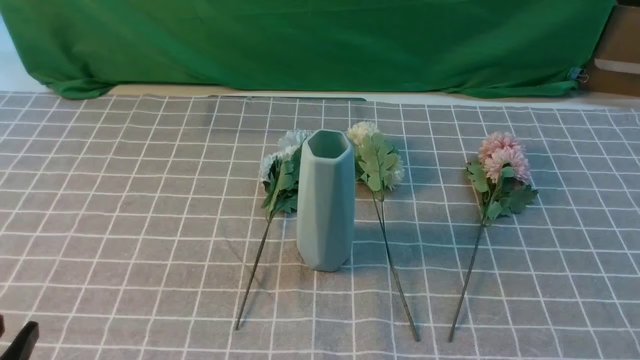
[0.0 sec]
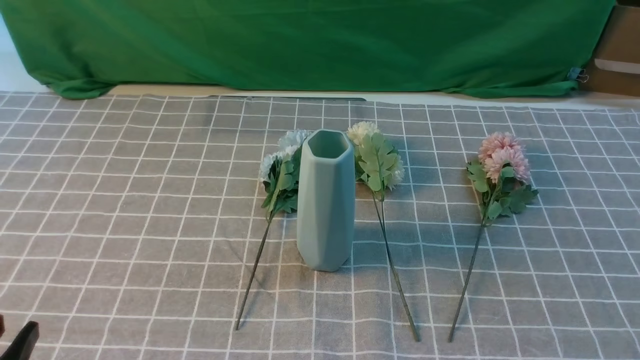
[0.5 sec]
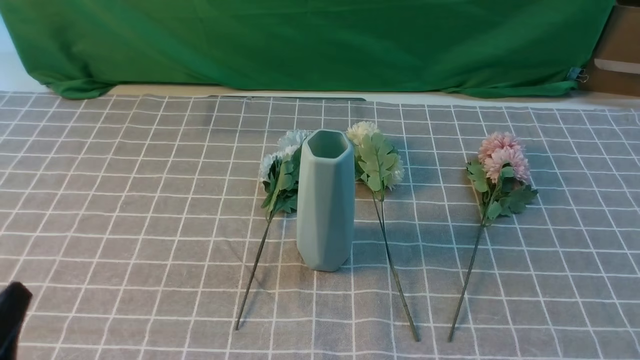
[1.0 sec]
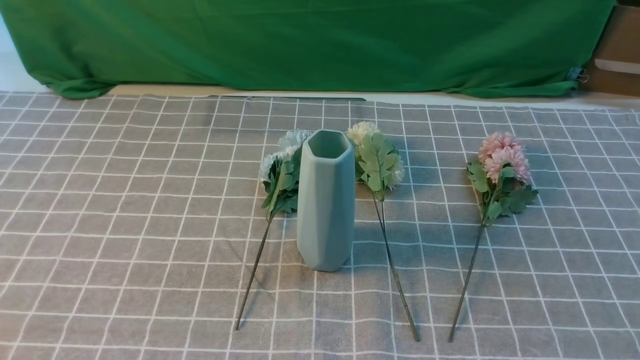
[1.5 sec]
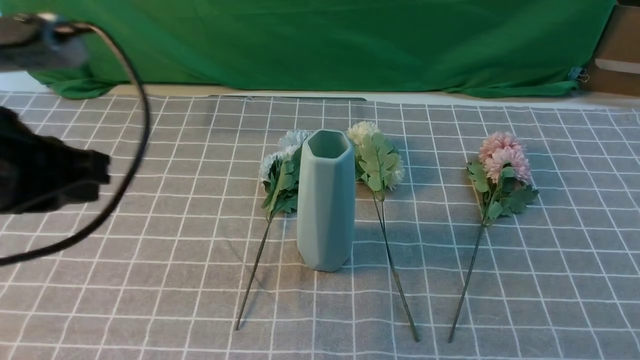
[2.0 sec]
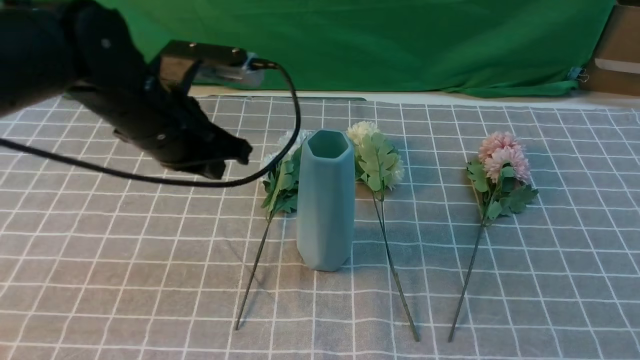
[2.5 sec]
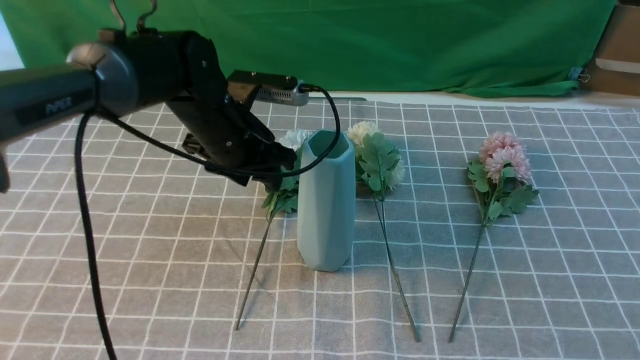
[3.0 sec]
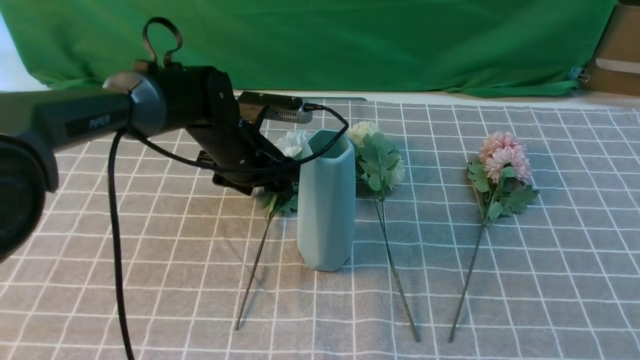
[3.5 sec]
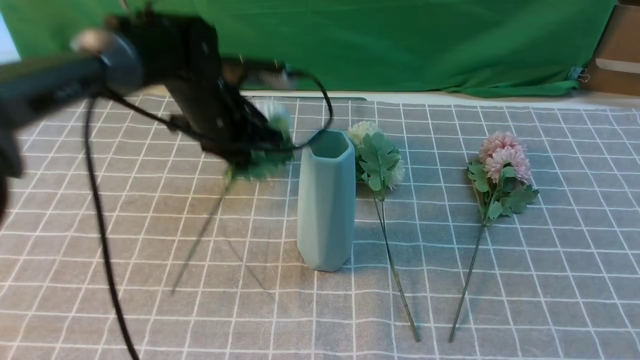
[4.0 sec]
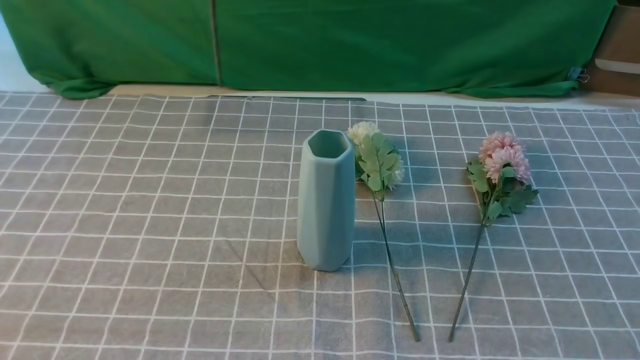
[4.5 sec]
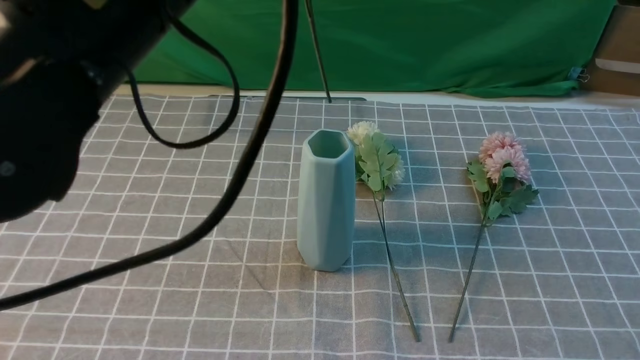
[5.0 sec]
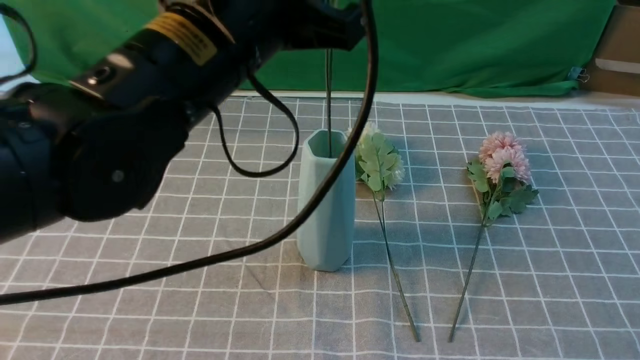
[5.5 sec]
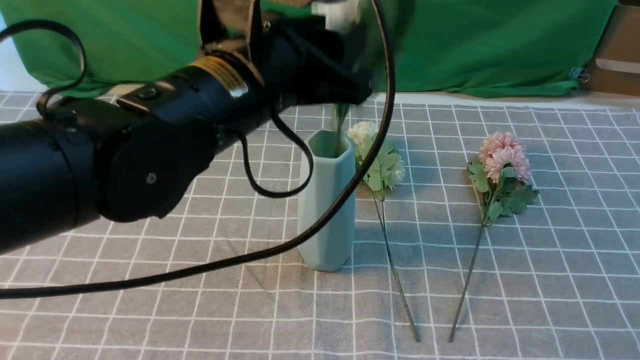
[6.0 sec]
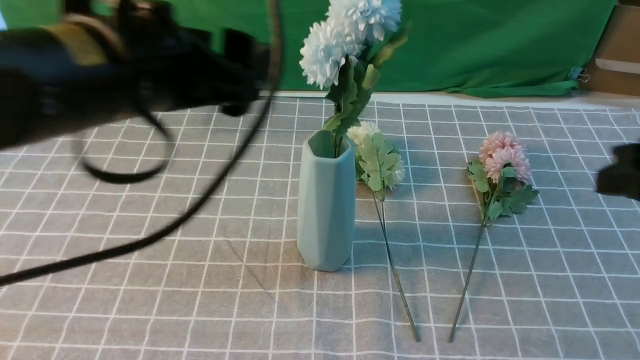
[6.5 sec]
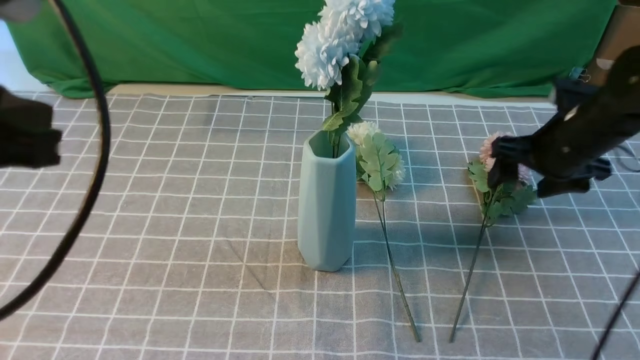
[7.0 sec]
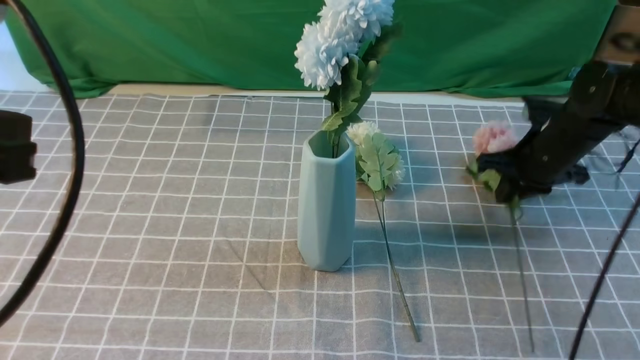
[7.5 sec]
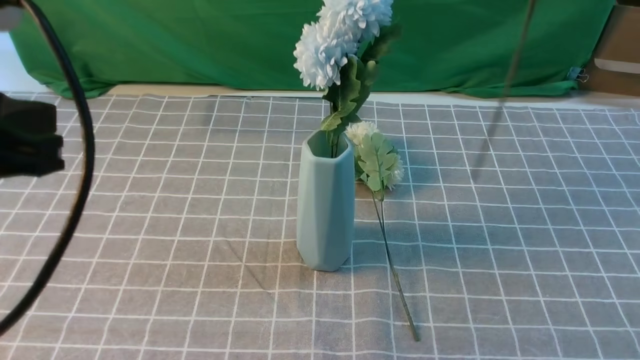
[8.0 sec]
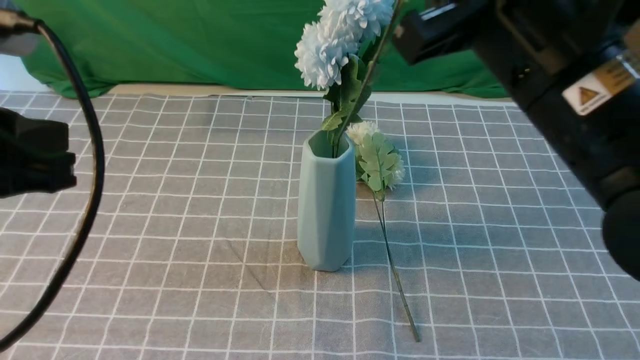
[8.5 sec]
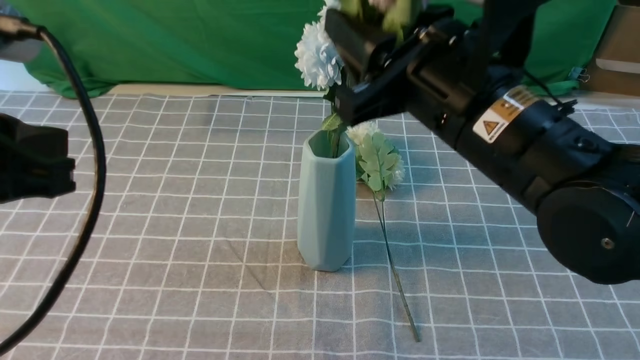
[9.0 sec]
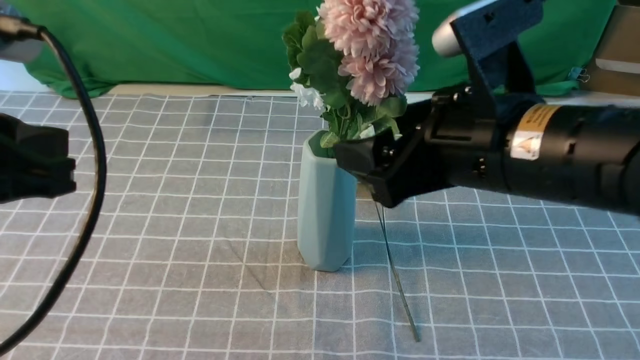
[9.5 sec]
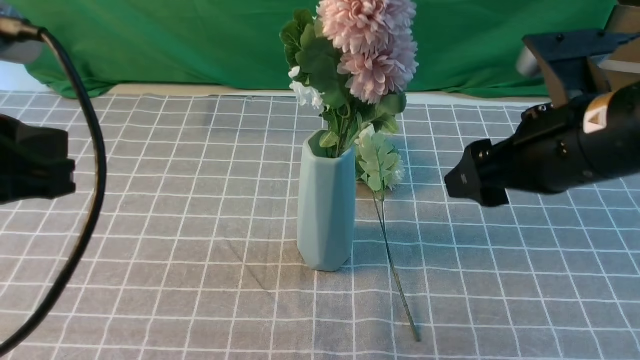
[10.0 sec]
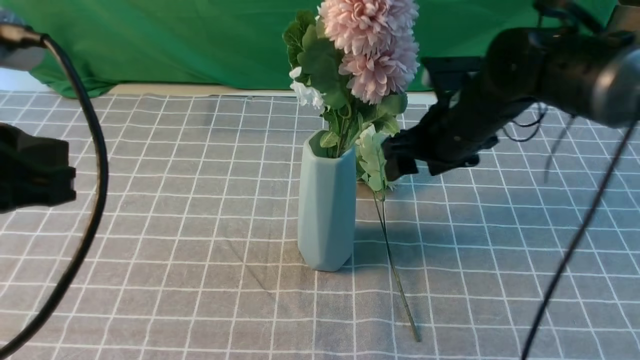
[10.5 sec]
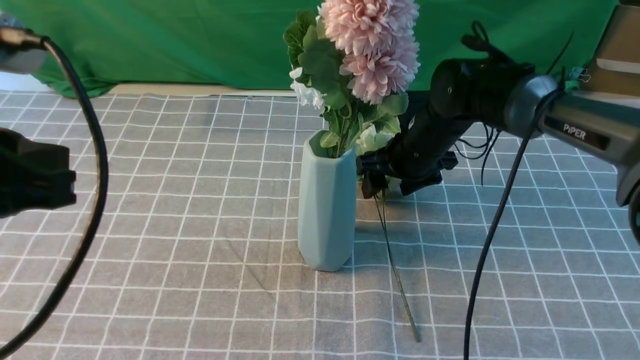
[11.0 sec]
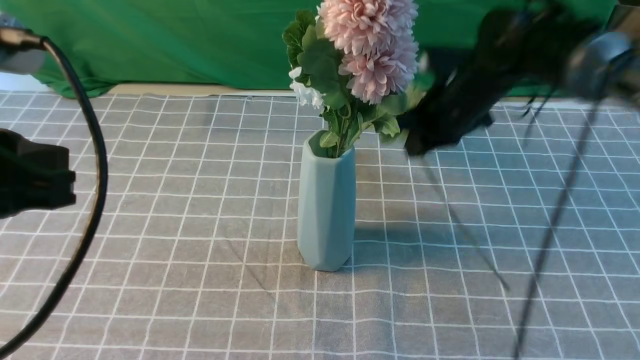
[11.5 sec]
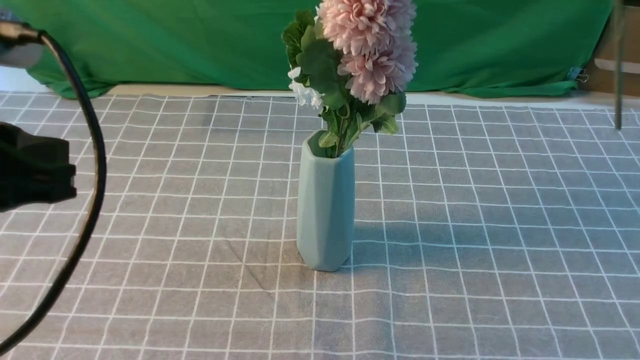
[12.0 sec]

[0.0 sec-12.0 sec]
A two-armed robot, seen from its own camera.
Task of the whole recording: insert the flowers into the vase on the table with the grey tablecloth.
Step, 0.0 sec to 3.5 sec: use the left arm to grab a bunch of fresh flowers.
Step, 4.0 sec to 6.0 sec: use the left arm to insert the flowers into the vase.
Step, 6.5 sec to 7.0 sec: use the right arm to grab a bunch of fresh flowers.
Step, 7.5 sec to 9.5 sec: use the right arm to insert the flowers into the vase.
Step, 10.0 sec to 11.0 sec: use the right arm to grab a bunch of fresh flowers.
0.0 sec to 2.0 sec: The left gripper shifts roughly 20 cm forward and upward, and closes.
2.0 sec to 4.0 sec: The left gripper travels forward and to the right by some 25 cm, and opens, then closes again; the right gripper travels upward by approximately 10 cm.
4.0 sec to 6.0 sec: The left gripper goes about 15 cm backward and upward, and opens up.
6.0 sec to 8.0 sec: The right gripper is displaced forward, to the left and upward by roughly 20 cm, and opens, then closes again; the left gripper is displaced to the left and backward by about 20 cm, and closes.
8.0 sec to 10.0 sec: The right gripper moves downward, about 10 cm, and opens up.
10.0 sec to 12.0 sec: The right gripper moves upward, roughly 20 cm, and closes its fingers.

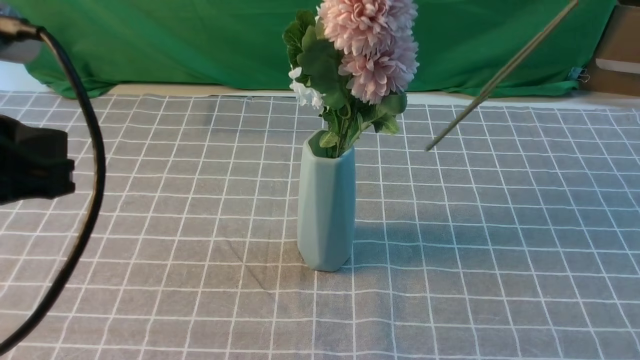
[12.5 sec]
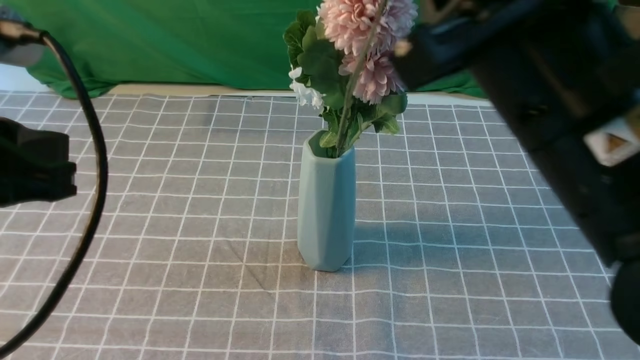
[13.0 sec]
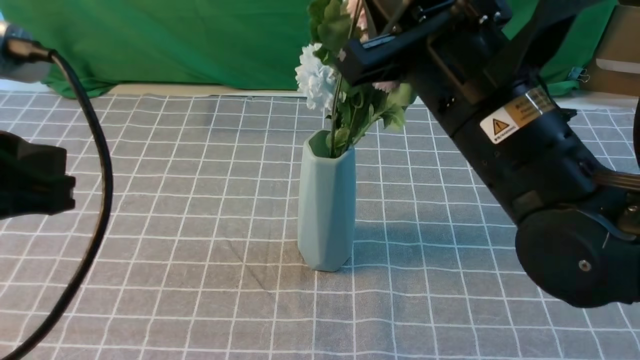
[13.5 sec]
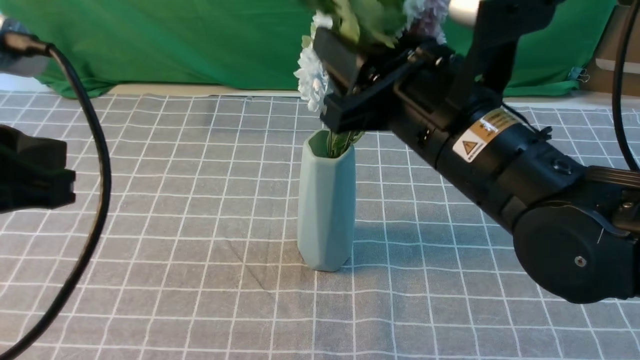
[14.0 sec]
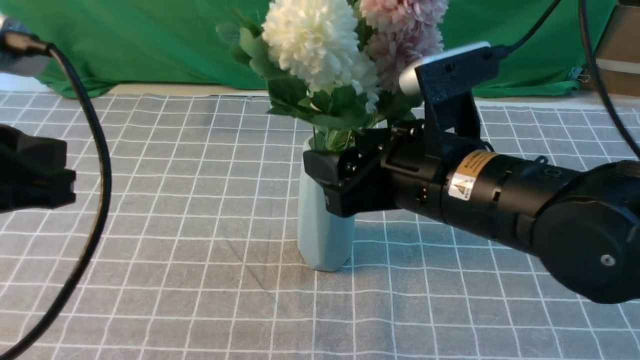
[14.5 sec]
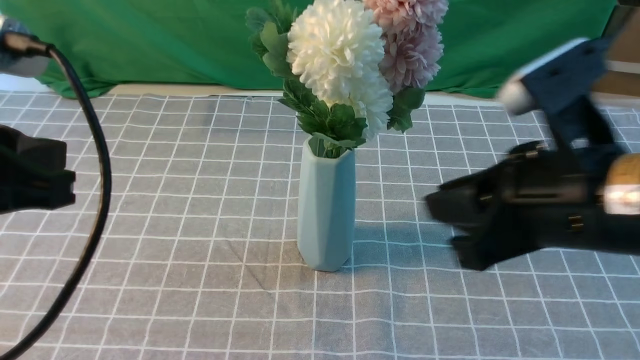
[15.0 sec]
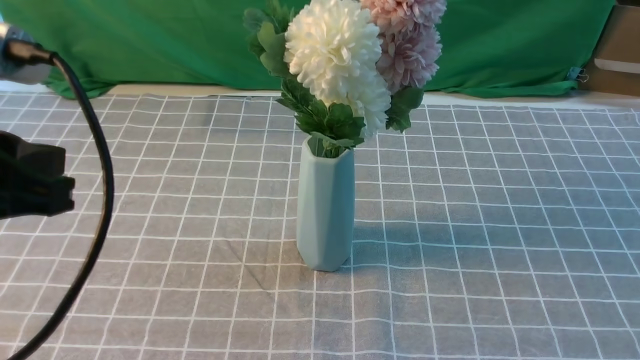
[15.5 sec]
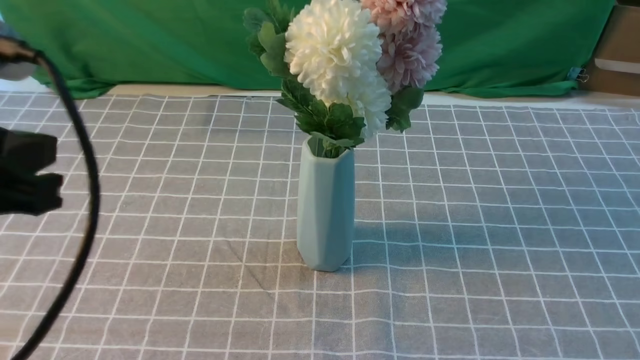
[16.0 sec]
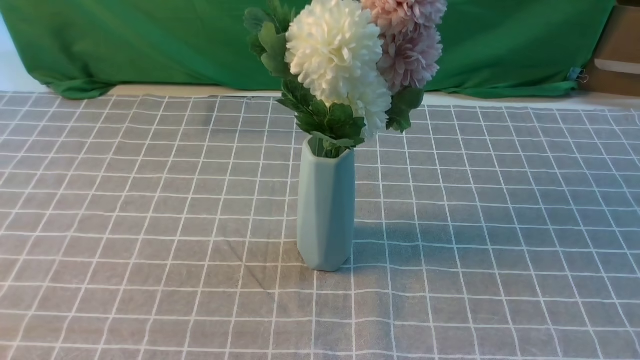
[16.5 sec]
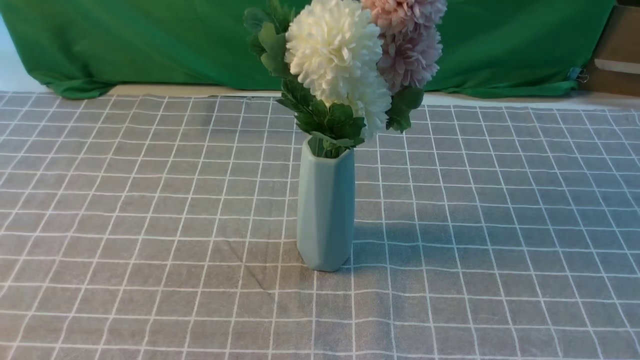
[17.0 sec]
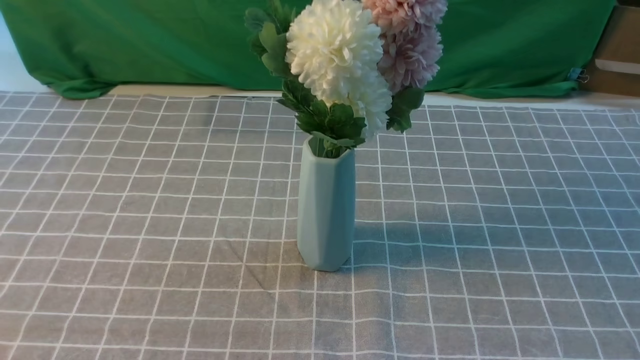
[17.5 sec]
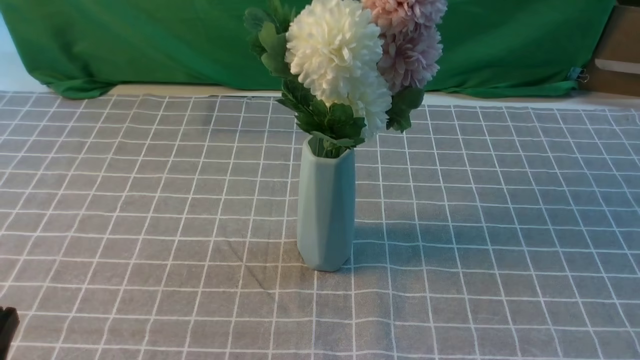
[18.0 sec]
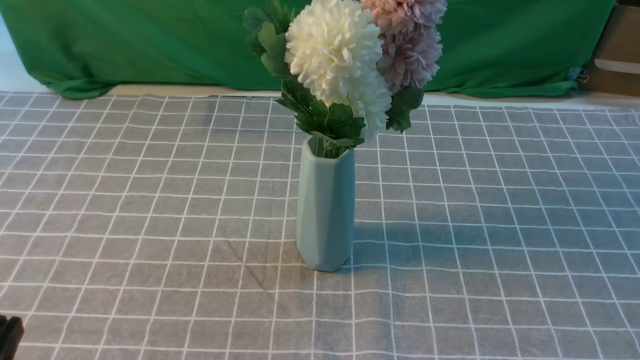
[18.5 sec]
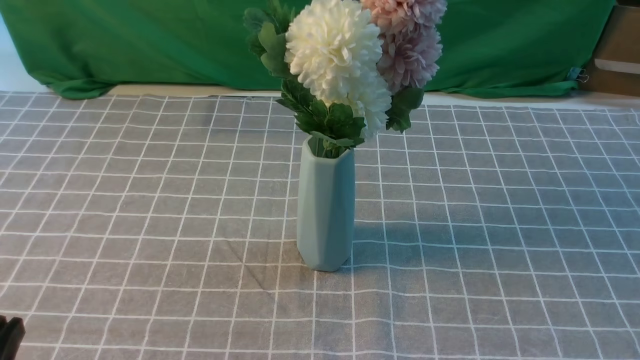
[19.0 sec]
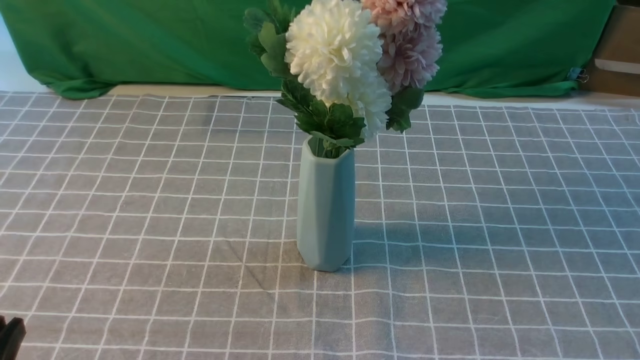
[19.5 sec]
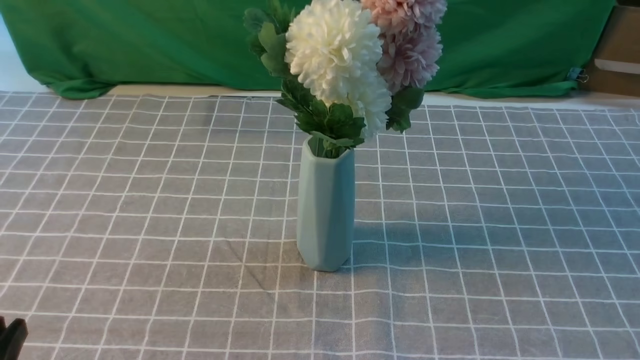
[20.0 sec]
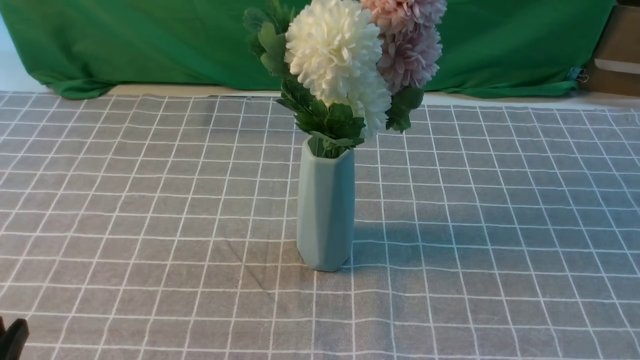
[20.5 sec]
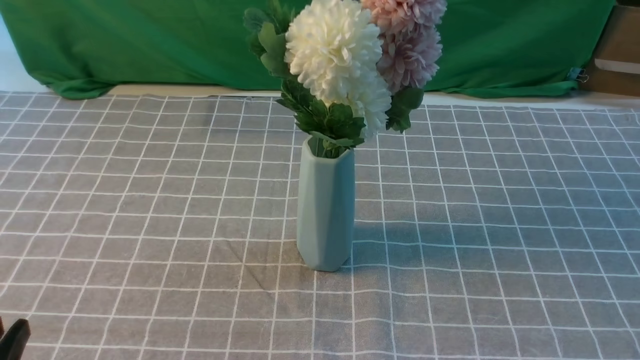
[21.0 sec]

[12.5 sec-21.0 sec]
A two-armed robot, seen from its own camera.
Task of the whole recording: insert the flowers into the vase on the table with the grey tablecloth.
Step, 12.5 sec to 14.5 sec: use the right arm to insert the flowers into the vase.
12.5 sec to 14.5 sec: The right gripper travels downward, to the left and forward by about 20 cm, and opens its fingers.
14.5 sec to 16.5 sec: The left gripper heads backward, covering roughly 10 cm. The right gripper travels to the right and backward by some 30 cm, and closes its fingers.
